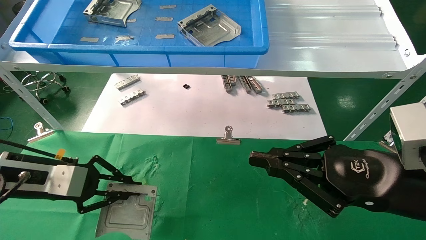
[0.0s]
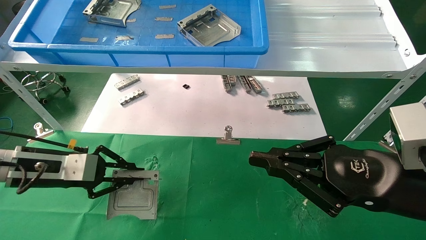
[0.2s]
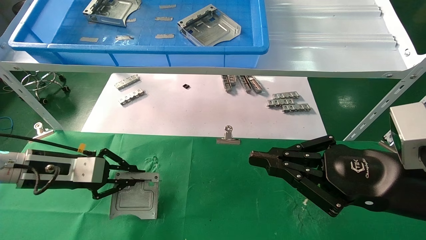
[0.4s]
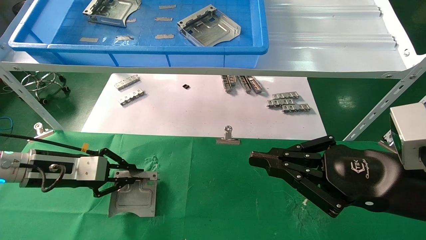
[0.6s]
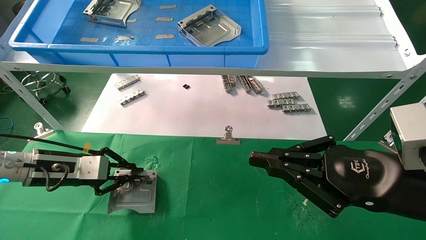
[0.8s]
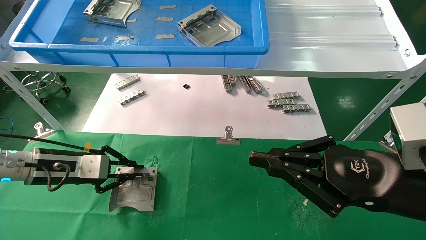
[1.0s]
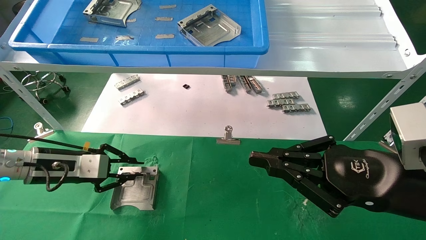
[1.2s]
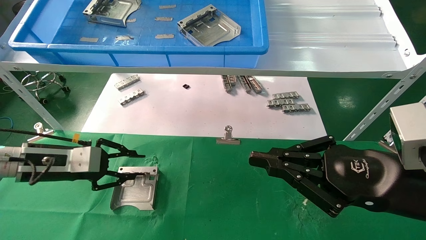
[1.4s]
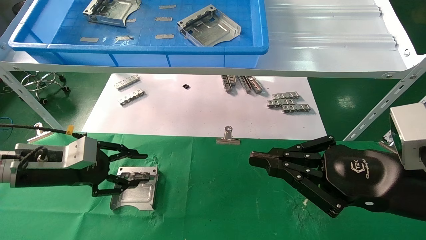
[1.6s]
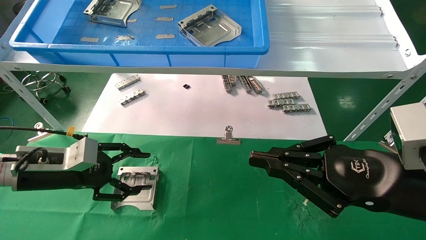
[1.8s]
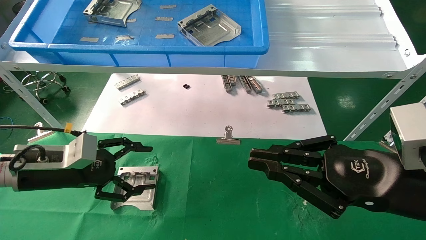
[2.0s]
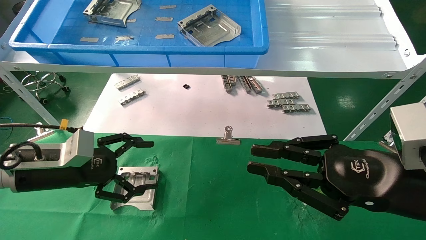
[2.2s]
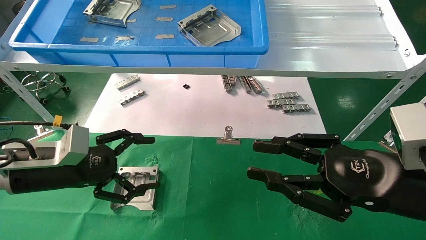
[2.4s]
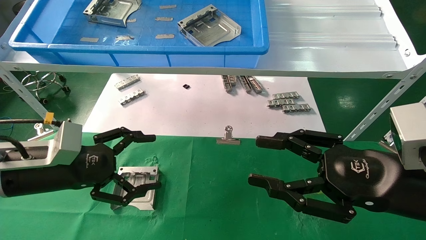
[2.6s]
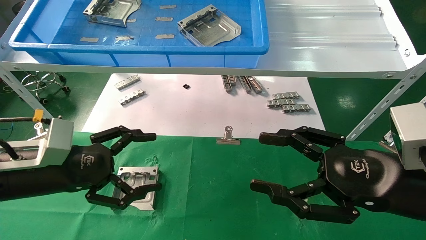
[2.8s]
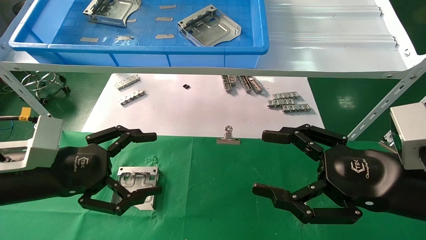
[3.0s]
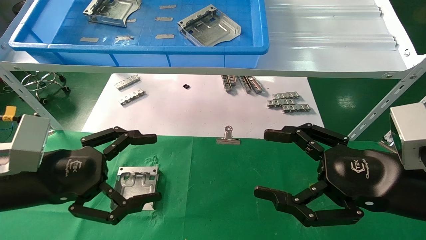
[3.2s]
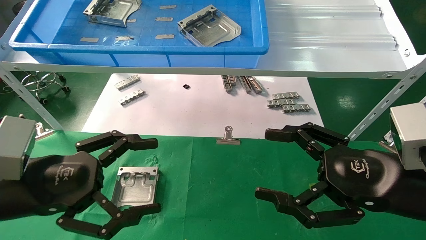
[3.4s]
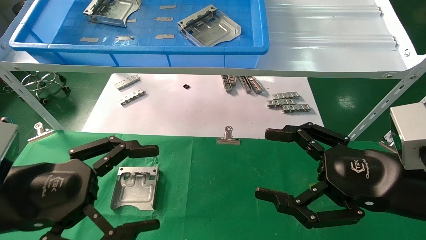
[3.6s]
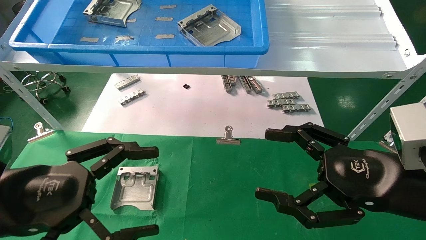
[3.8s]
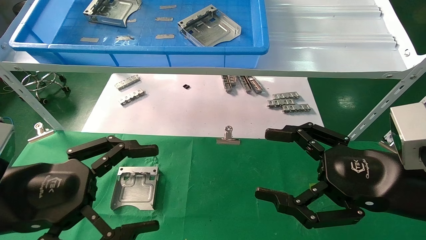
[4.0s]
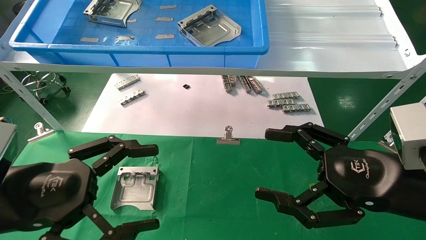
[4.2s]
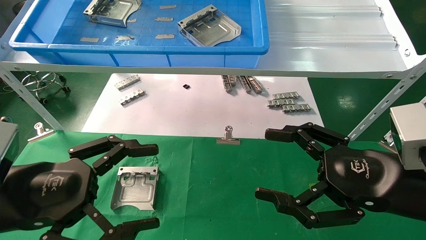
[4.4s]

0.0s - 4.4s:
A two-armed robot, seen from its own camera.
Task of the whole recording: use the mechanical arm to pick up the parts and place them on the table.
1.4s - 3.0s: The right gripper opens up, while the left gripper moves backward, approximately 10 cm, and opens its fingers.
3.0s - 4.4s: The left gripper is displaced backward by some 5 cm.

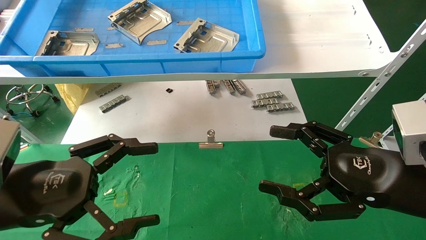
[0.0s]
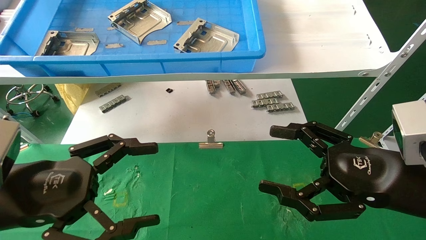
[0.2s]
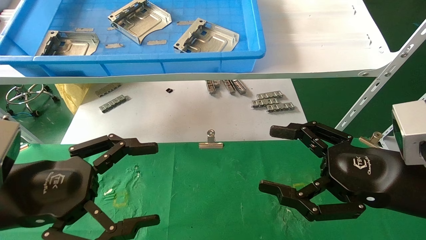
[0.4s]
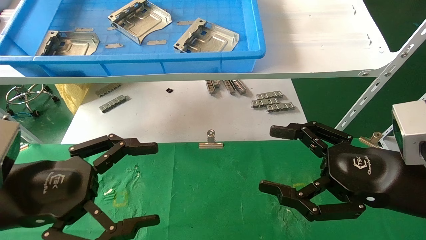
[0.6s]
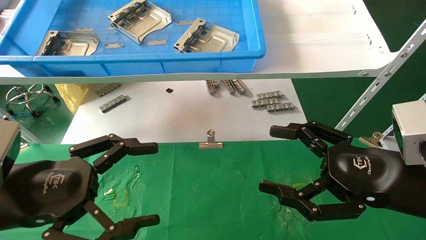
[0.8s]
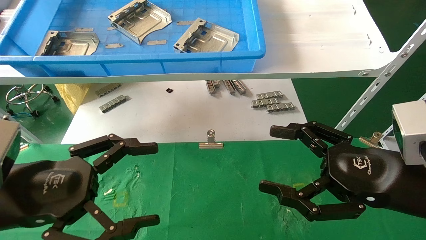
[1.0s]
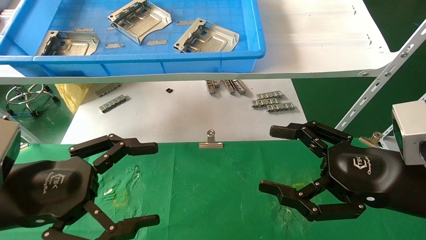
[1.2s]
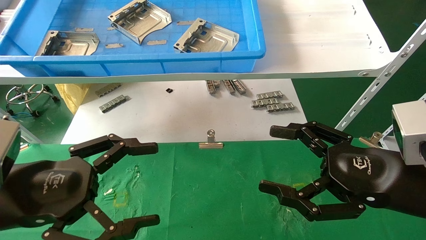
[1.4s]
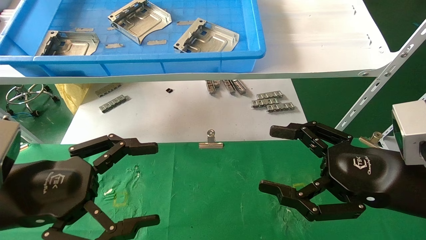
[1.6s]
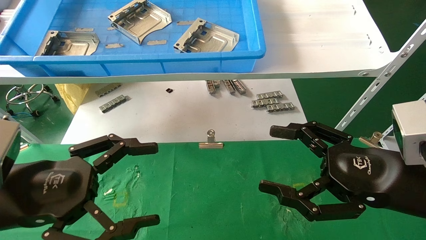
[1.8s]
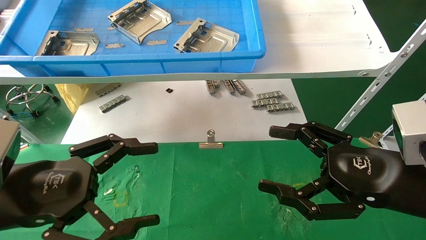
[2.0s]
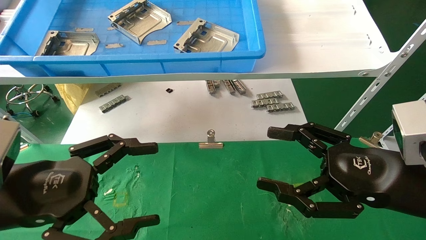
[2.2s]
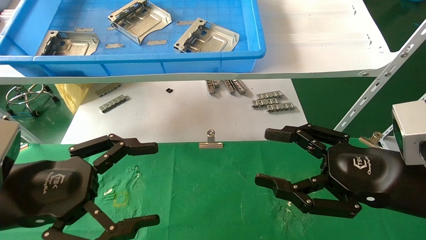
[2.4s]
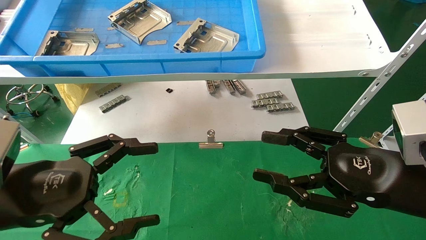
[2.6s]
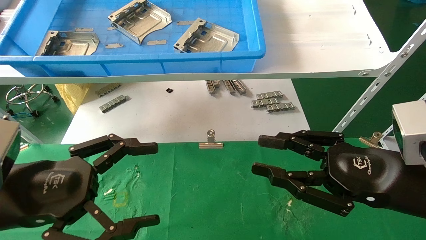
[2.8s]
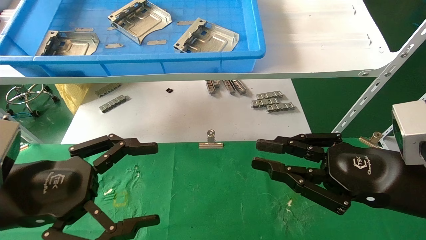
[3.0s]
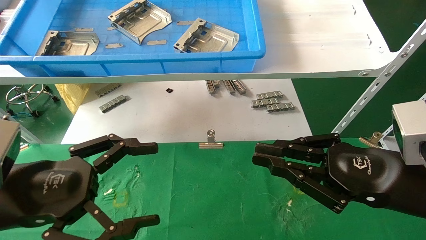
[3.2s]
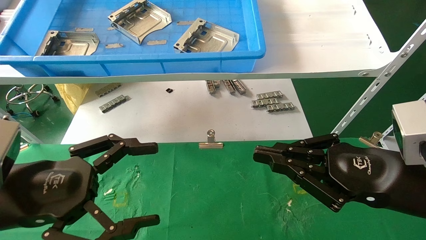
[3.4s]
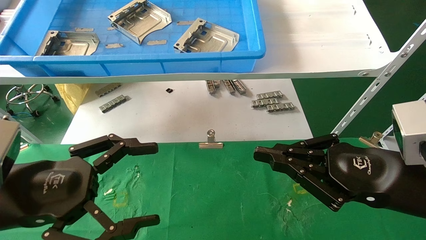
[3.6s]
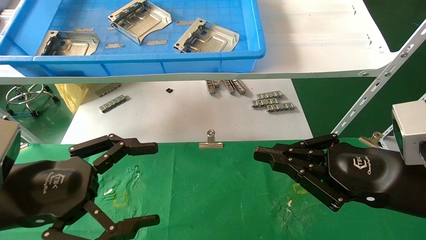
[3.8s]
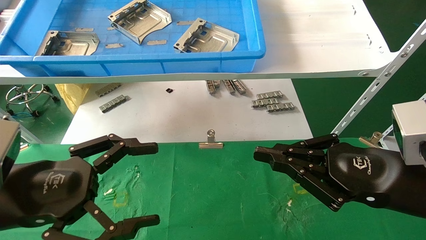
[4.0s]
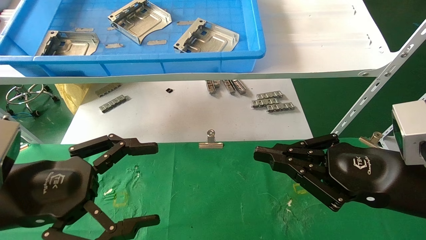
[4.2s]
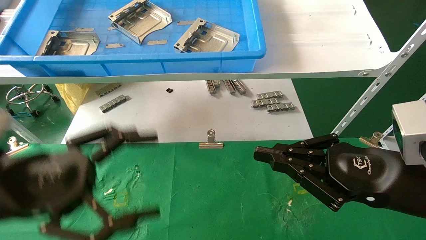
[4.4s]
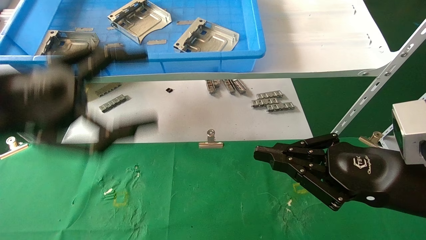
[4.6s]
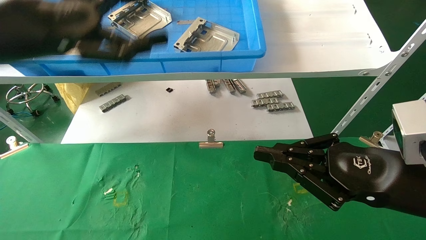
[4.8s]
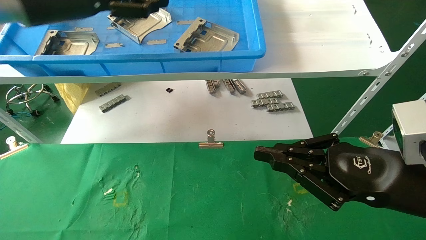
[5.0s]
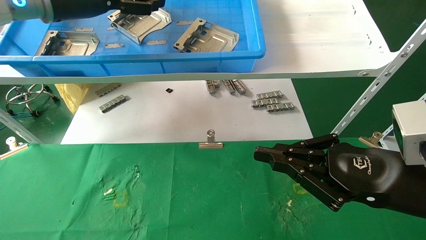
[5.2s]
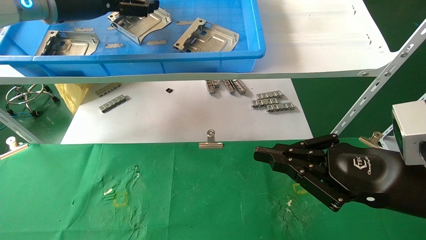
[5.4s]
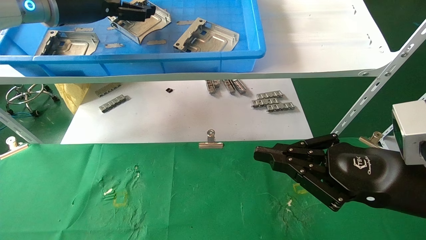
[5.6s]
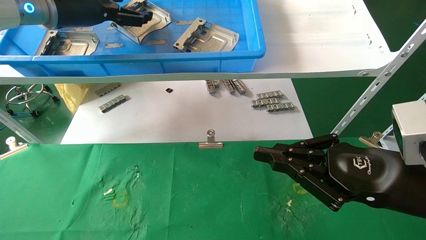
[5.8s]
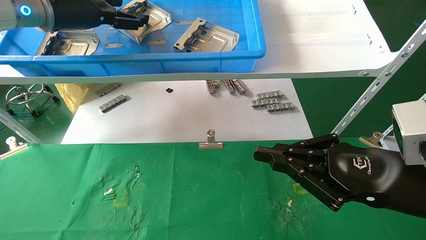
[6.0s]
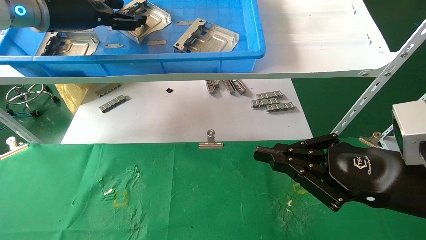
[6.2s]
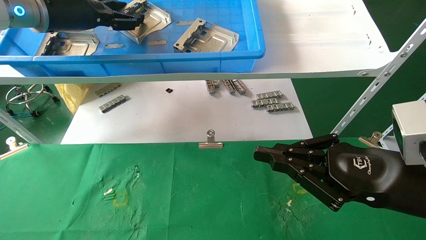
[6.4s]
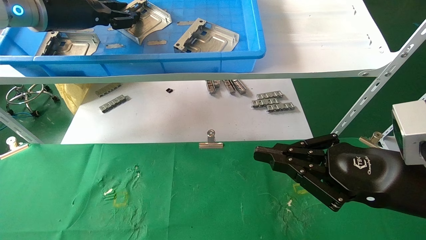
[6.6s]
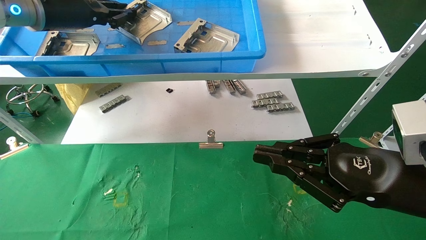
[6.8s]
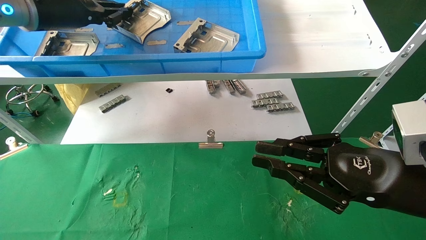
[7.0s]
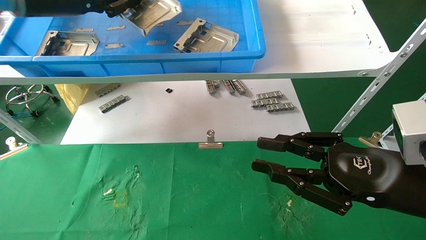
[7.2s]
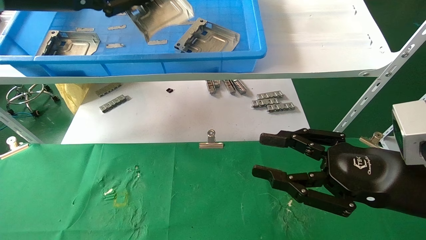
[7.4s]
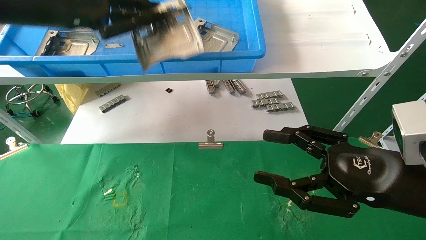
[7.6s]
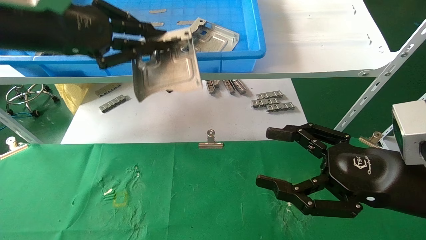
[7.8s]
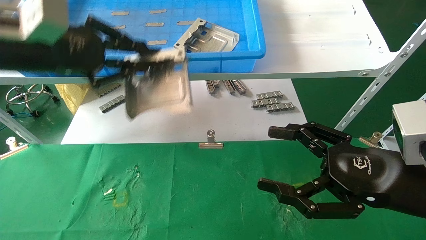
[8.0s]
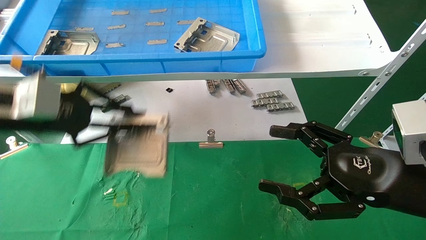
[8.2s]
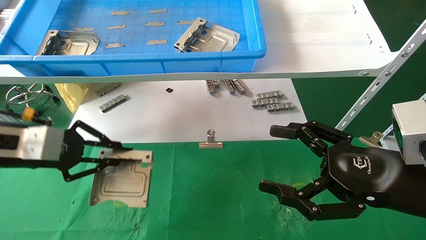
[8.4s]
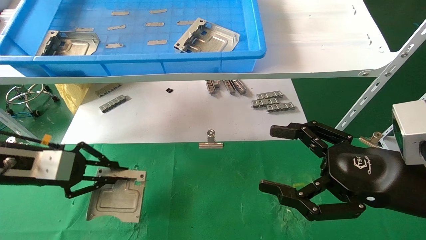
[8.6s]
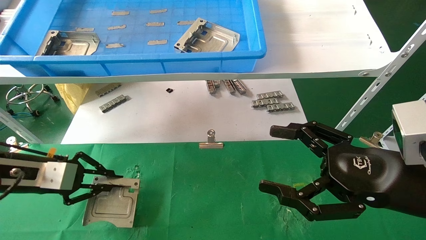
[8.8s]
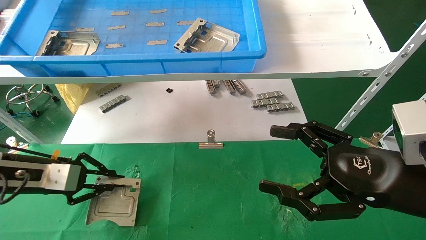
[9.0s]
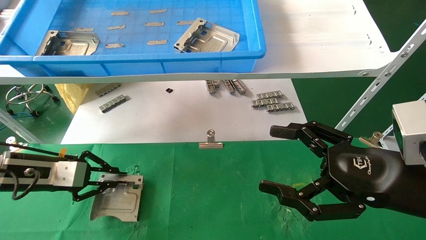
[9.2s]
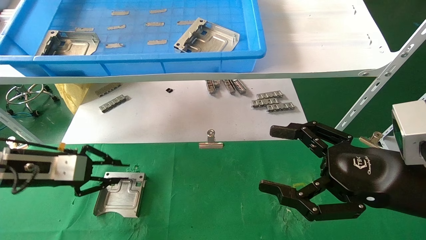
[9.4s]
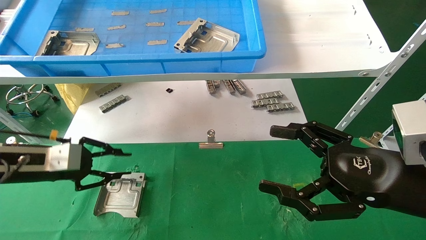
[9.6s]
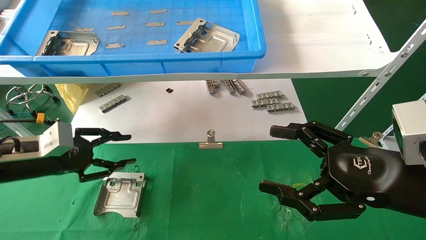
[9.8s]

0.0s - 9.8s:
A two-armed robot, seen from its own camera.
Task of the whole recording: use the mechanical arm to pick up the parts and place them on the table.
Step, 4.6s - 7.0s: Pick up the hard drive bracket from the feeding area.
Step, 7.2s - 9.4s: Place the hard drive bracket into the box.
0.0s - 1.4s: Both grippers stay about where they are.
1.4s - 2.8s: The right gripper closes.
2.8s - 4.2s: The right gripper closes.
4.2s - 5.6s: The left gripper moves forward and upward, some 30 cm.
5.6s - 7.0s: The left gripper closes.
7.0s - 8.4s: The right gripper opens its fingers. The left gripper heads downward and backward, covering about 20 cm.
8.4s - 9.8s: The left gripper heads downward, covering some 5 cm.

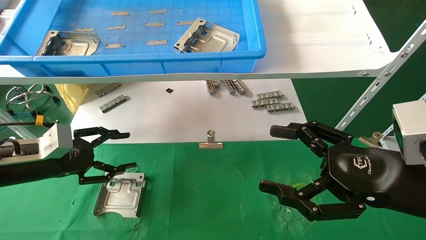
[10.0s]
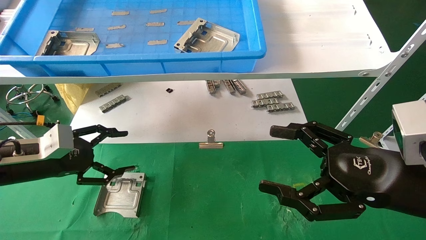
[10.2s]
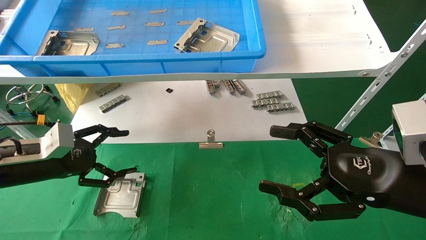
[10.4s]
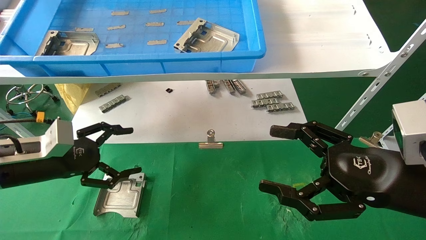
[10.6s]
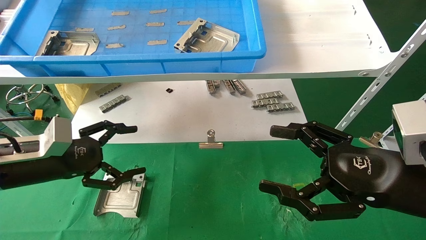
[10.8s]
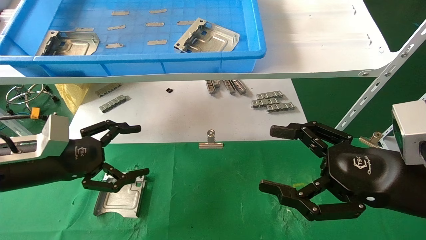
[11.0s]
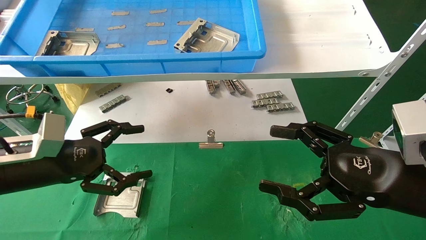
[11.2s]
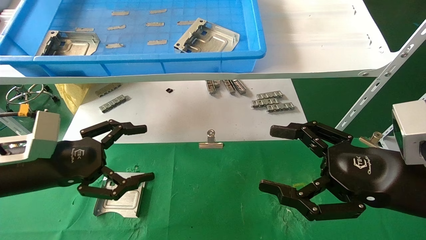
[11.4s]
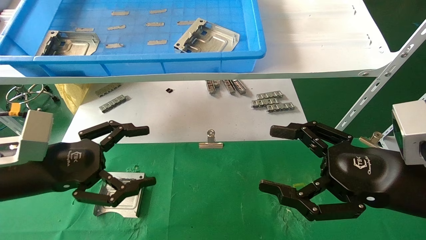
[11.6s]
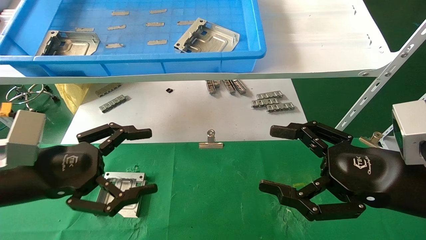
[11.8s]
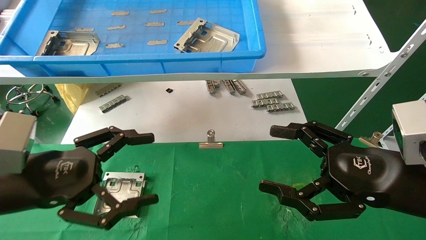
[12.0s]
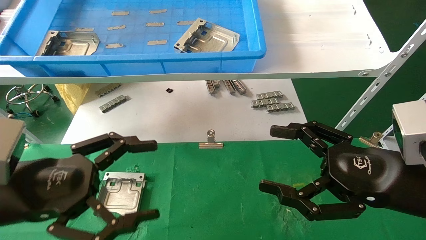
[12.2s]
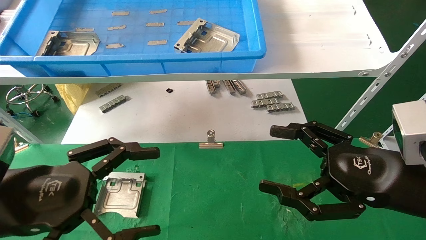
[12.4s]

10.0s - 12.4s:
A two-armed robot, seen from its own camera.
Task of the whole recording: use the mechanical arm to pick up the parts and place them on the table.
10.0s - 11.2s: The left gripper shifts by approximately 5 cm, and opens up.
11.2s - 12.4s: The left gripper travels backward by about 10 cm.
